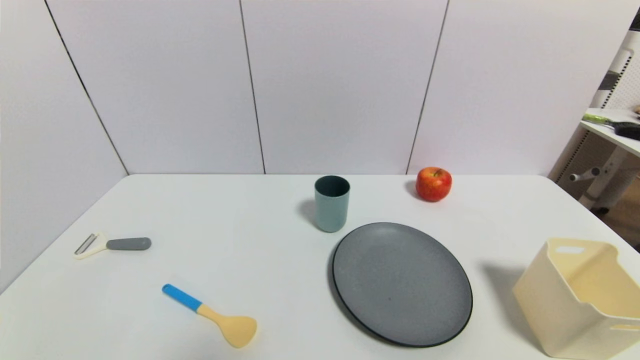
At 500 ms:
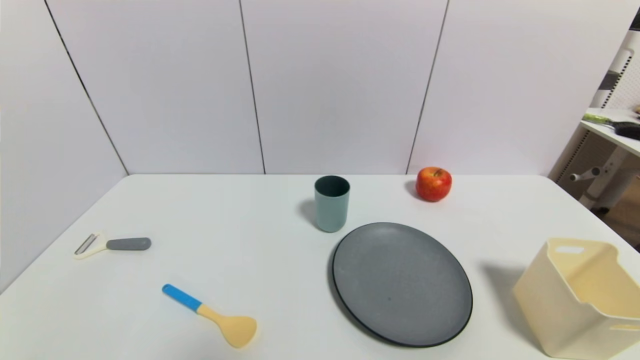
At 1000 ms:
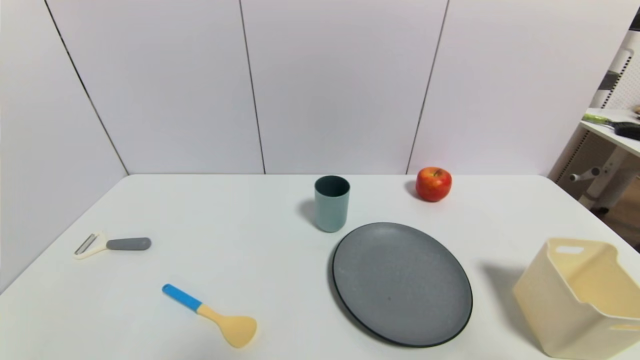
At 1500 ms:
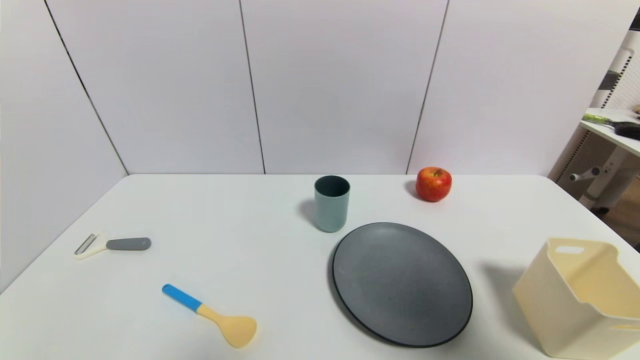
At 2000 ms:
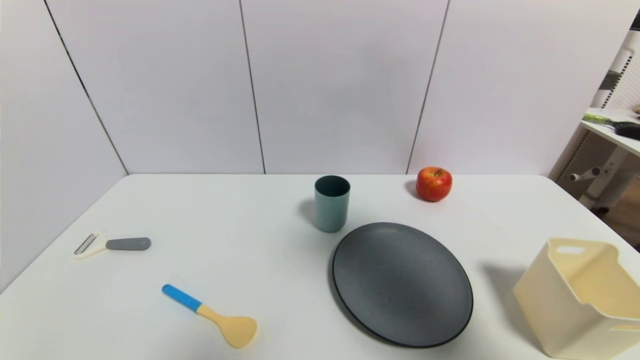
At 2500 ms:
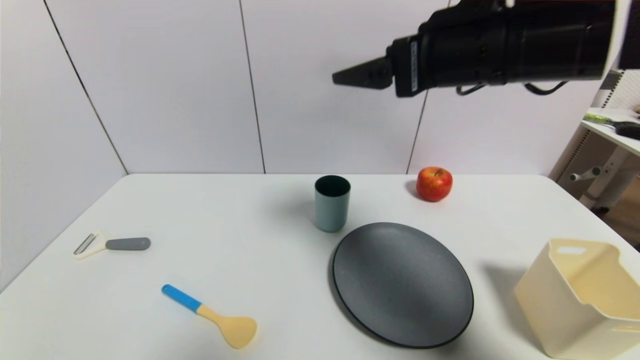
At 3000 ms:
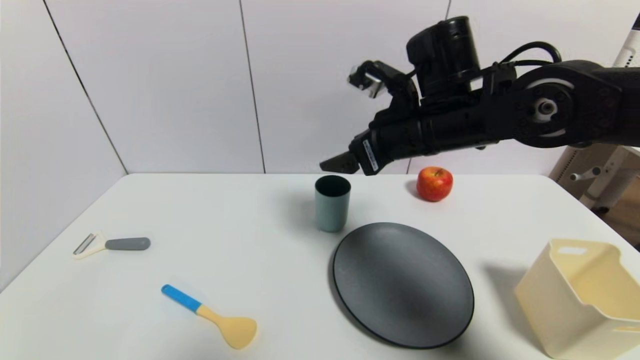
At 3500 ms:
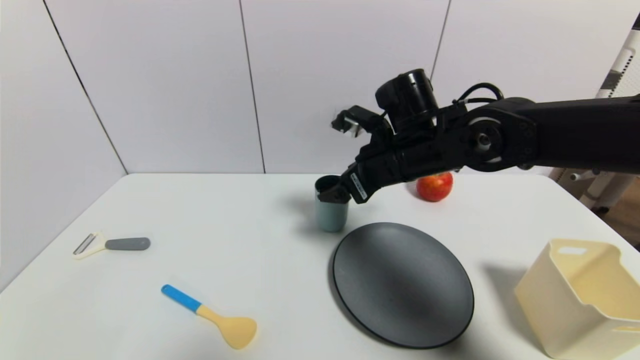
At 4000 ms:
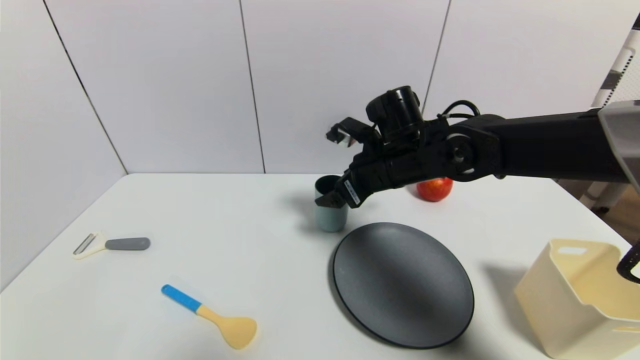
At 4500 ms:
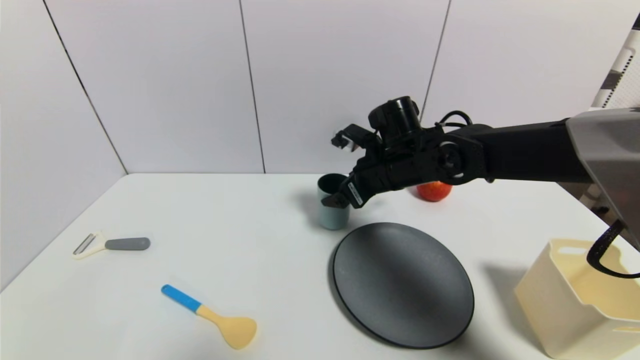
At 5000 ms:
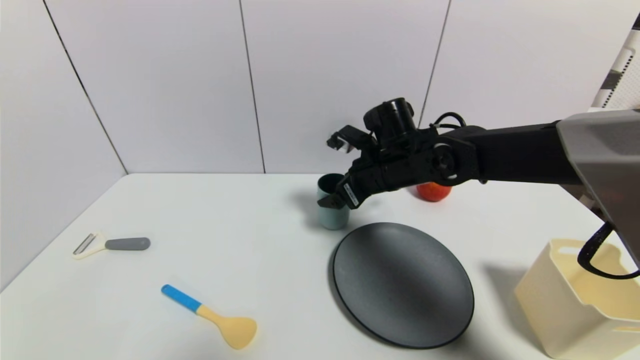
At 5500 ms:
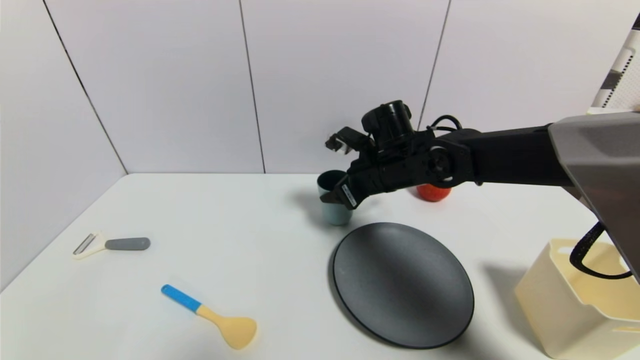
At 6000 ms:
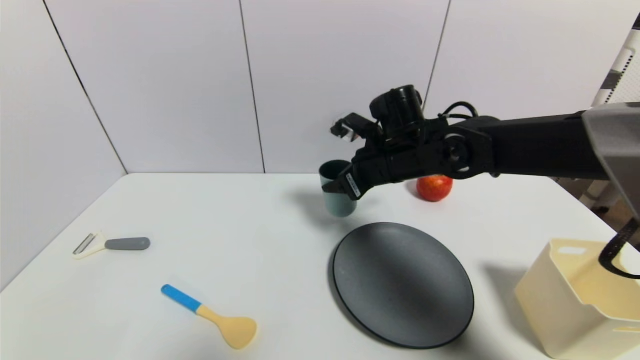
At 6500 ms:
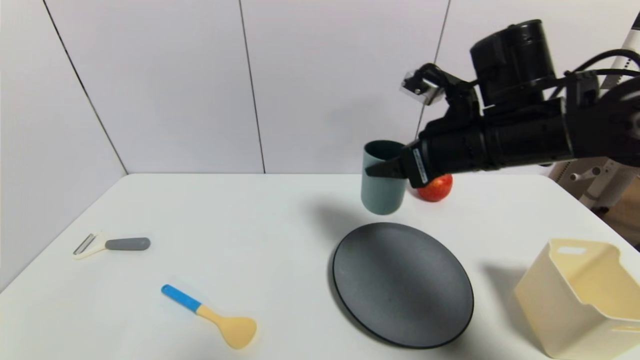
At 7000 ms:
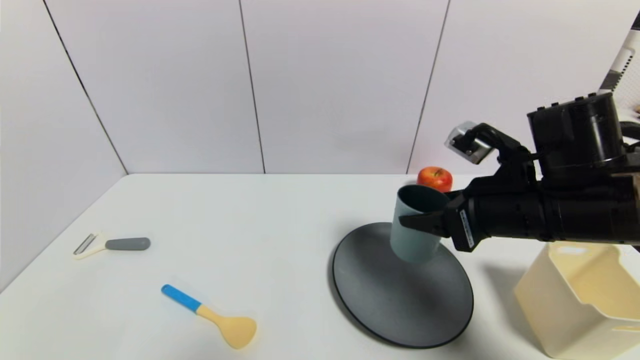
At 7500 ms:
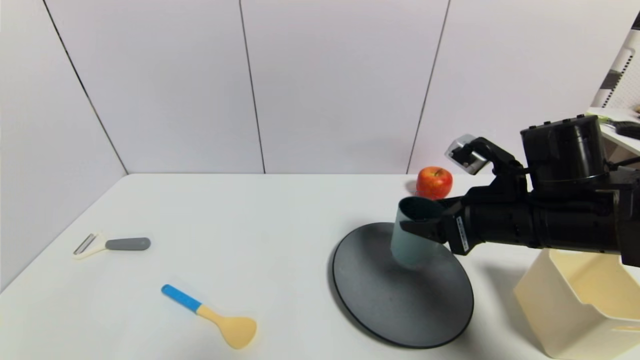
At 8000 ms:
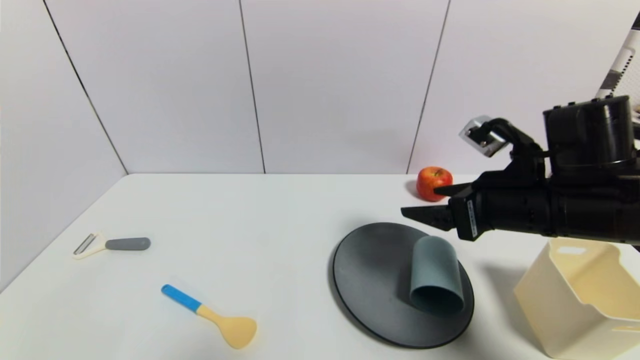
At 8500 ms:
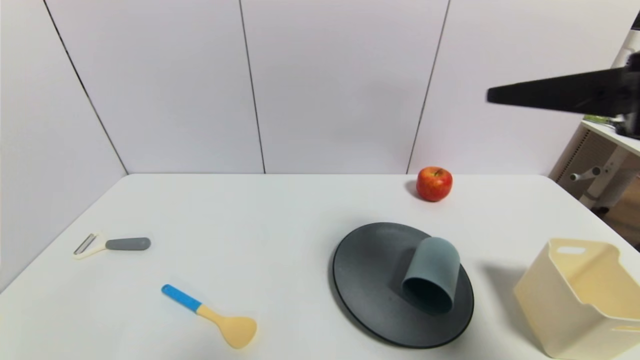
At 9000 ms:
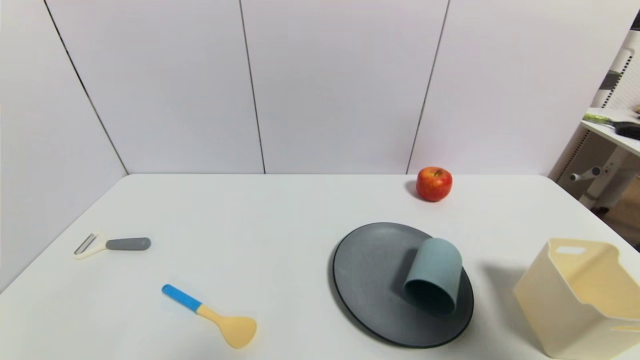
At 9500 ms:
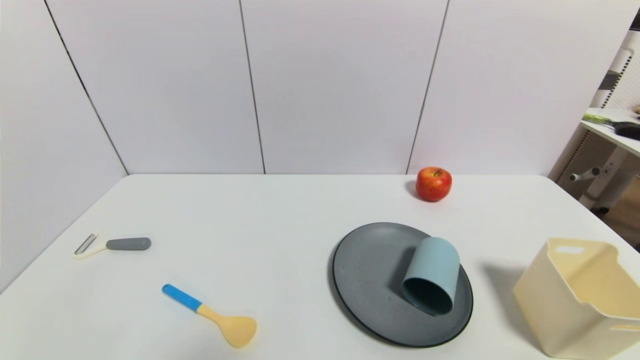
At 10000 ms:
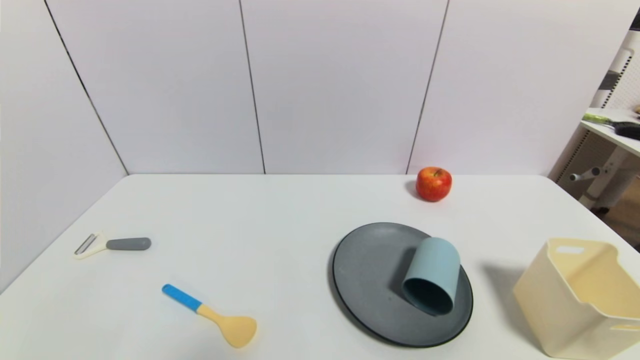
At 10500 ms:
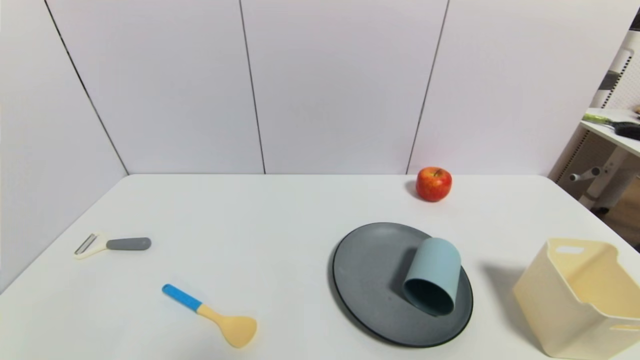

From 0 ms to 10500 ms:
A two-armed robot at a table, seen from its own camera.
Task of the whole recording: use a gripper to pick the target object and place on the gray plate.
Step, from 0 ms to 5500 ms: Grasp the blue cup with the right gripper.
Step, from 6000 ms to 8000 ms: Place the blue cup on the gray plate with the right gripper.
From 0 ms to 2000 ms: The right gripper shifts approximately 40 cm upward and forward.
From 2000 ms to 4000 ms: The right gripper shifts about 30 cm downward, forward and to the left.
From 4000 ms to 6500 ms: The right gripper shifts some 15 cm backward, to the right and upward, and closes its fingers.
From 6500 ms to 8500 ms: The right gripper heads backward, upward and to the right, covering roughly 20 cm, and opens its fingers.
From 8500 ms to 10500 ms: The right gripper travels downward and backward by approximately 35 cm.
